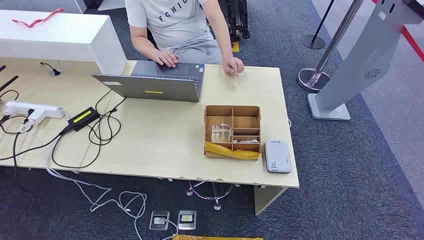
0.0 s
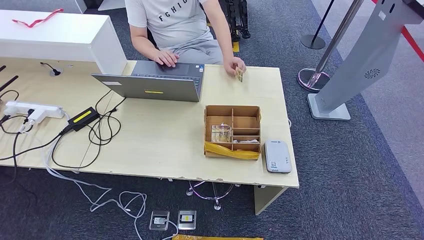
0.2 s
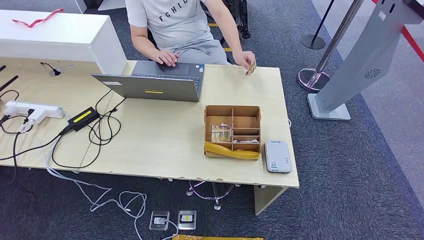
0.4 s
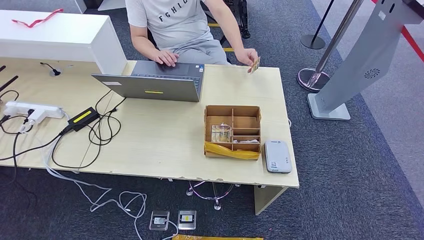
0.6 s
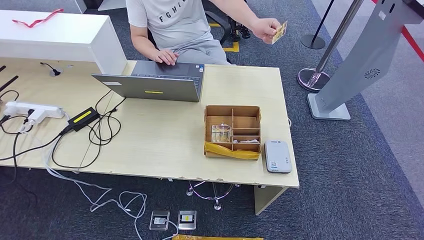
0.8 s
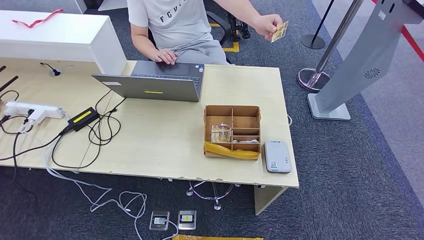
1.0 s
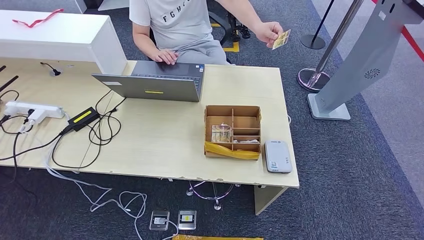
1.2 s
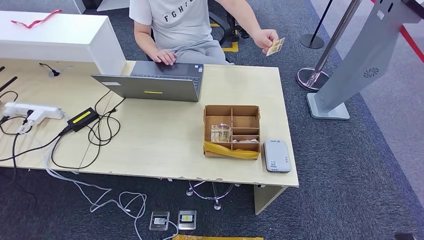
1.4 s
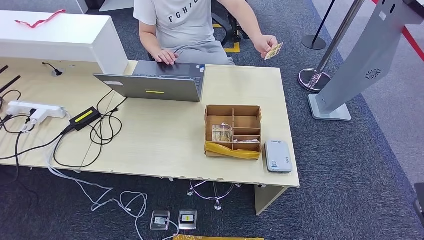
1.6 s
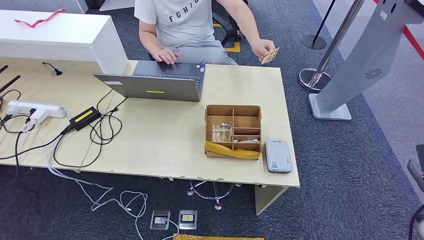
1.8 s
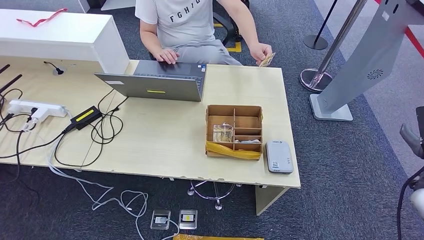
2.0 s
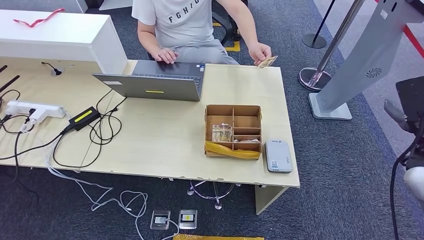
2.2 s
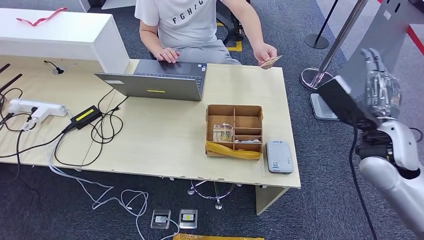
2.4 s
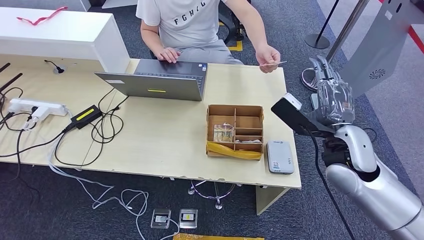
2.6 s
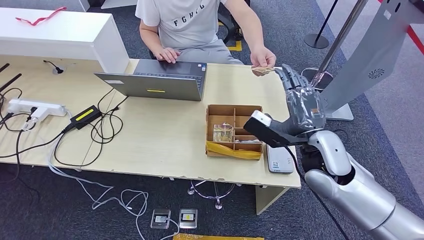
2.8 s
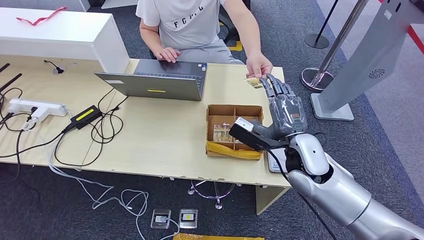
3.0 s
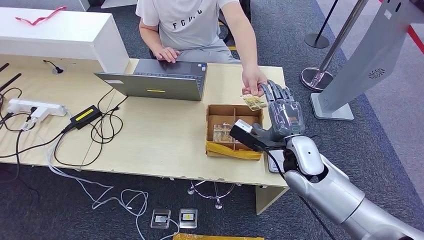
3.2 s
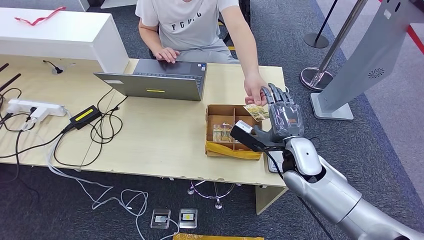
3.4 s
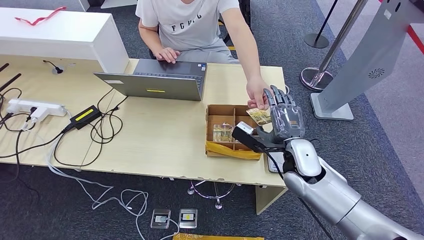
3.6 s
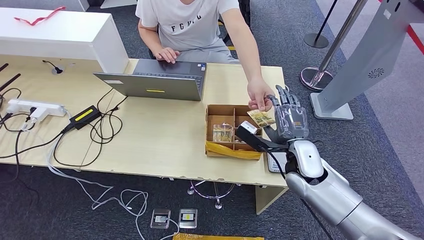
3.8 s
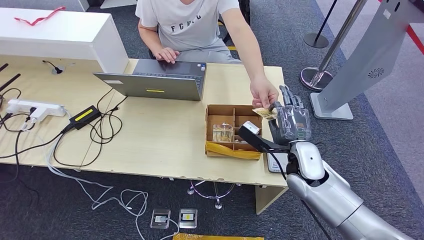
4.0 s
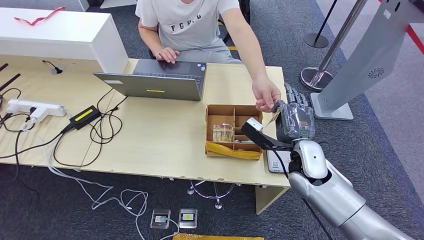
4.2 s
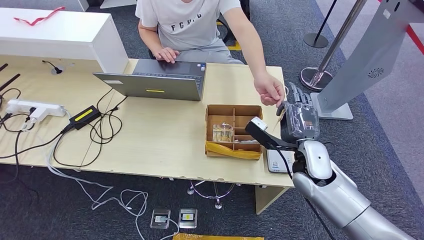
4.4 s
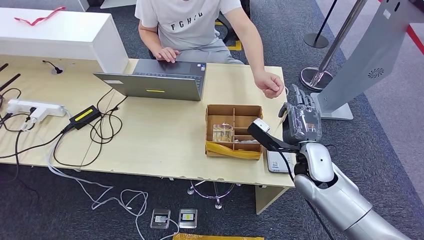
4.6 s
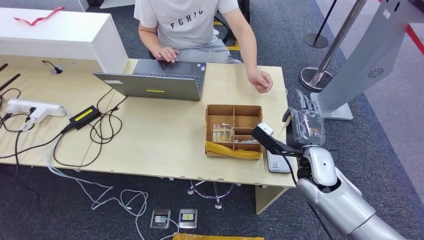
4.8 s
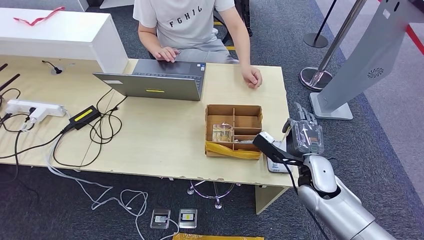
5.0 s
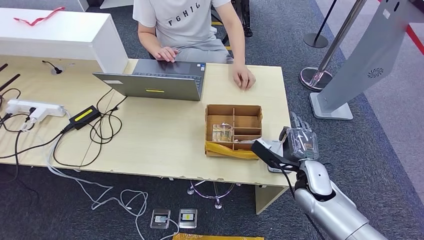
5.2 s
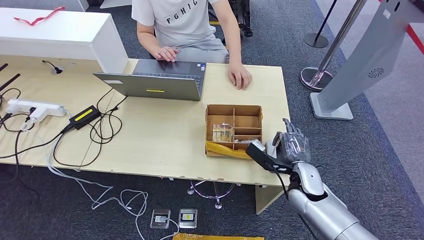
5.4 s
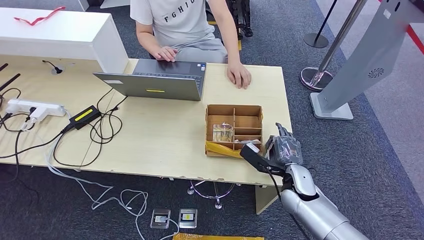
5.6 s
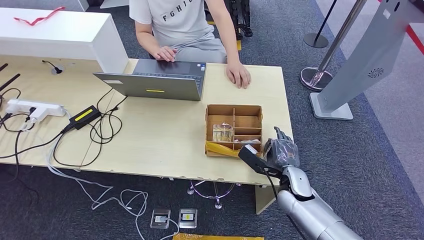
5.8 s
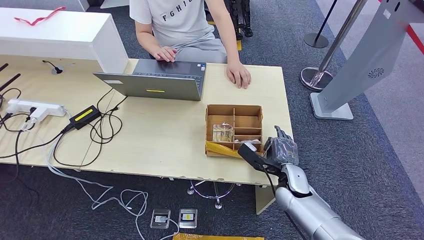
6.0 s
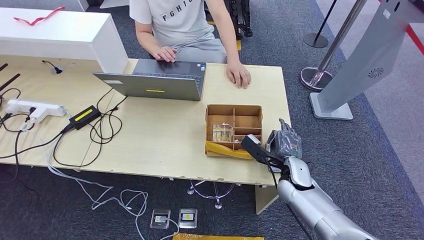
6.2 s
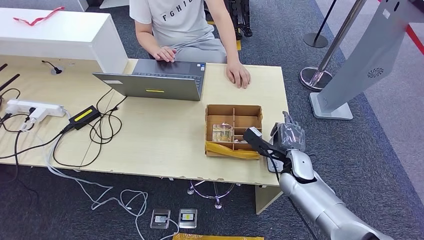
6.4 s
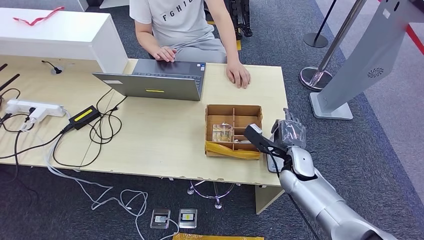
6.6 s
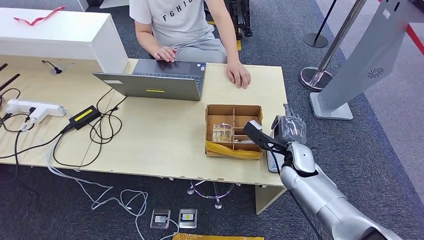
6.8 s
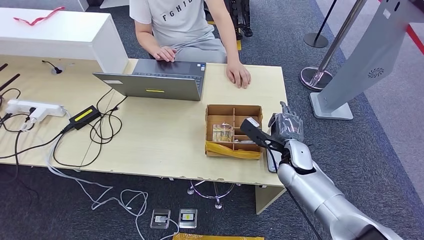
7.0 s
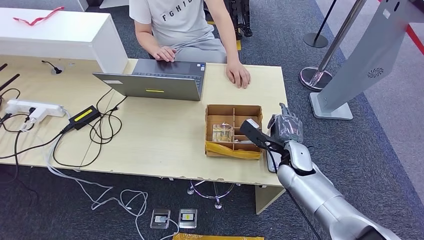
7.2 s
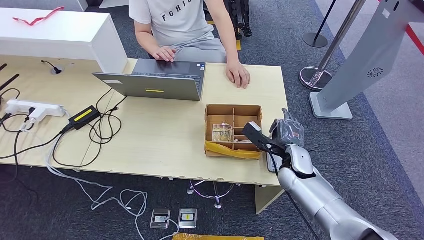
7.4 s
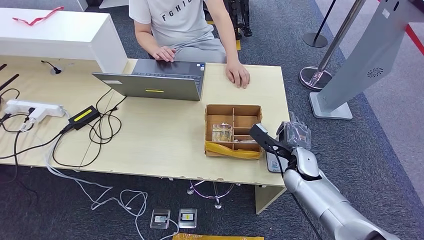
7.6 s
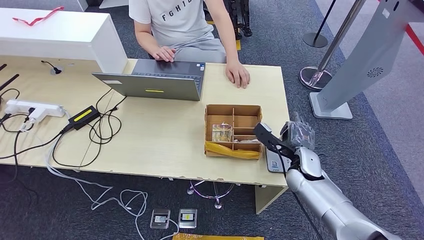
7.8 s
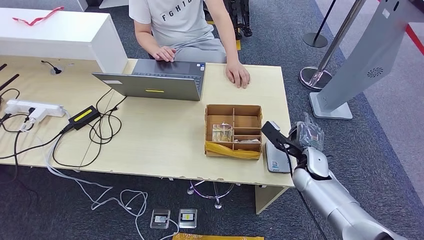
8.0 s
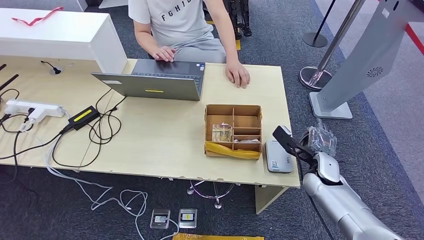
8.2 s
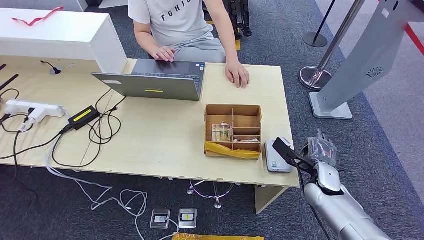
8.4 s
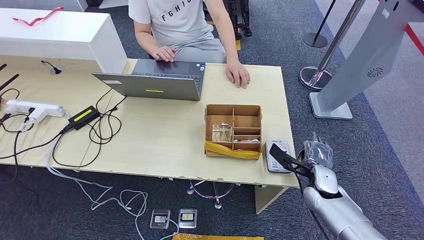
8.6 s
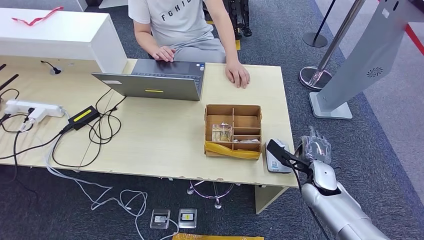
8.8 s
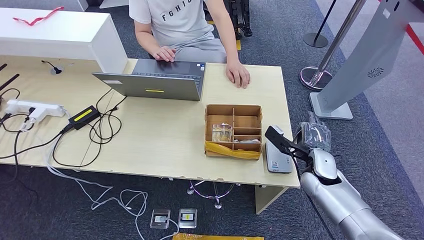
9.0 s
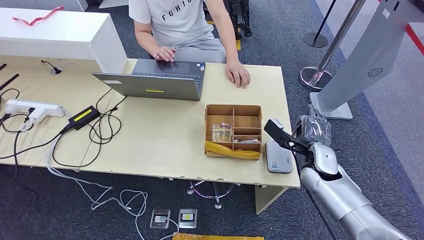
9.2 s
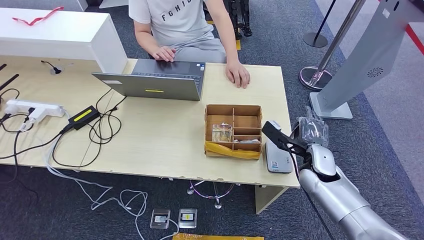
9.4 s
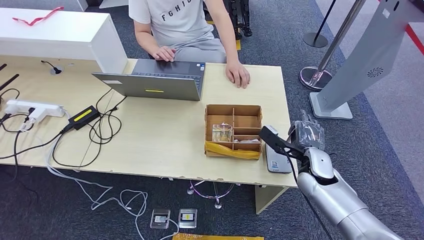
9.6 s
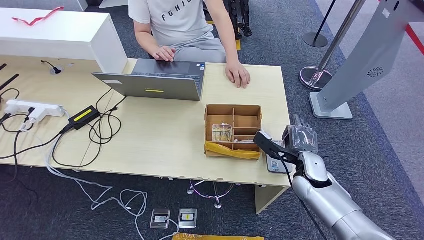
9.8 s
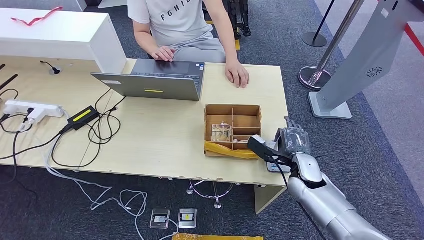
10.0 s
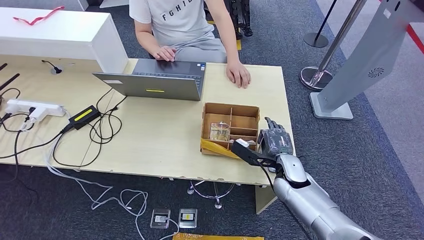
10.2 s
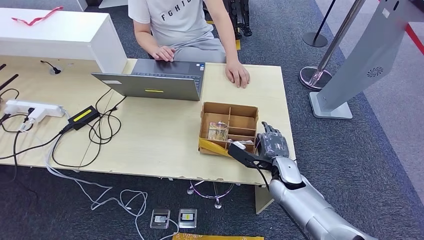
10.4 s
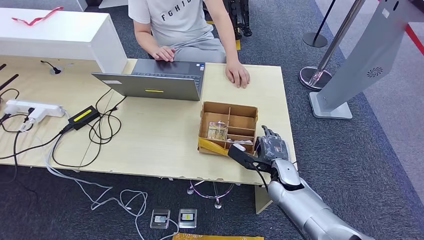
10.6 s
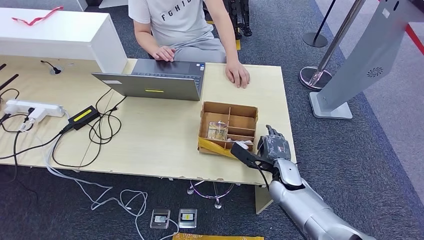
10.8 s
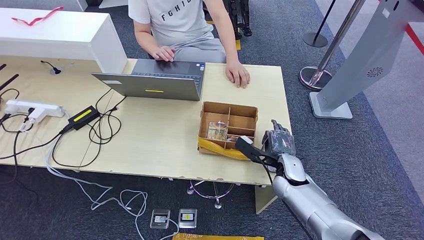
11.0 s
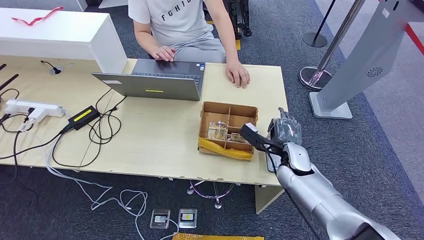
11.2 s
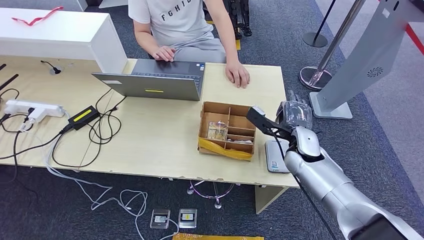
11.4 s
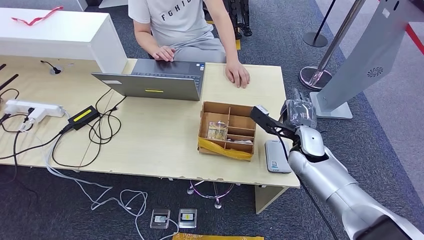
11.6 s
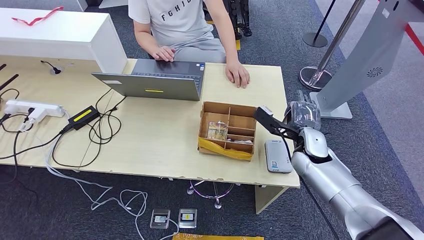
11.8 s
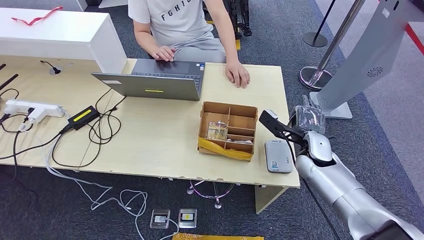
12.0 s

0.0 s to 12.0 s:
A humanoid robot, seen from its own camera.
Step, 0.0 to 4.4 s: Take the ID card from the person's hand.
Step, 4.8 to 7.6 s: Place the ID card on the card reader.
3.0 to 4.4 s: The right hand ends up about 5 cm from where it was.
4.4 to 6.0 s: The right hand heads downward, covering roughly 10 cm.
6.0 to 7.6 s: The right hand moves roughly 5 cm.
7.6 to 9.0 s: The right hand moves to the right, approximately 5 cm.
9.0 to 10.4 s: The right hand is displaced to the left by about 10 cm.
10.4 to 12.0 s: The right hand moves upward and to the right, some 10 cm.

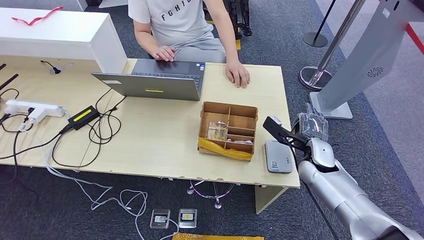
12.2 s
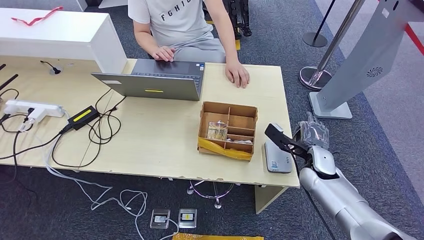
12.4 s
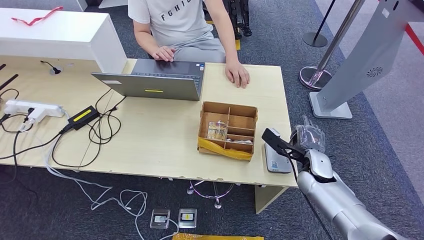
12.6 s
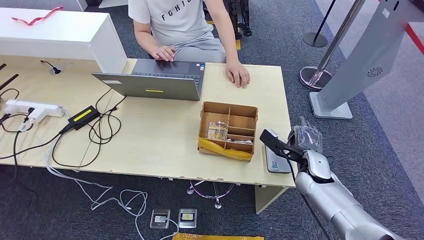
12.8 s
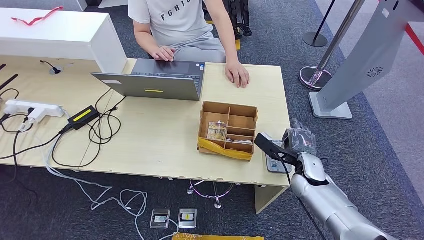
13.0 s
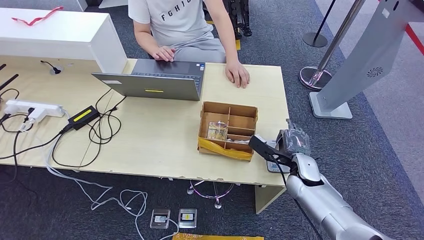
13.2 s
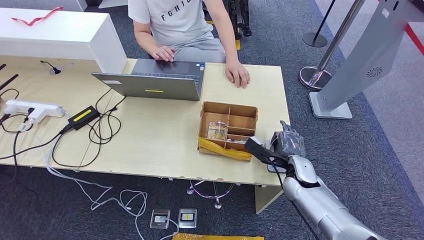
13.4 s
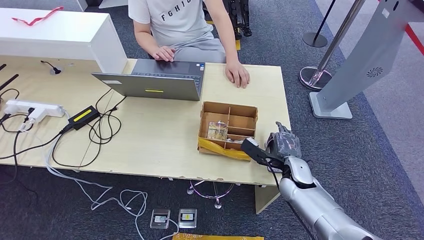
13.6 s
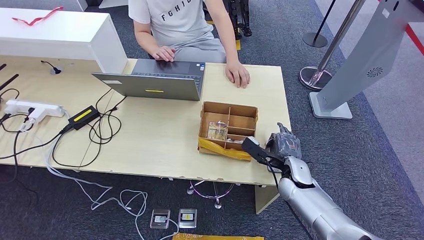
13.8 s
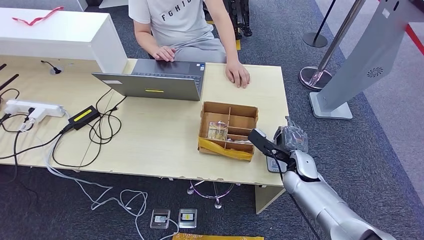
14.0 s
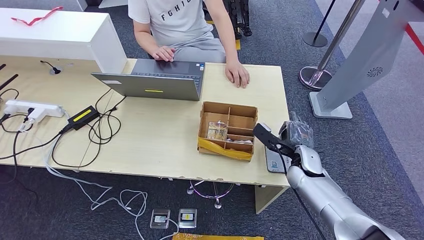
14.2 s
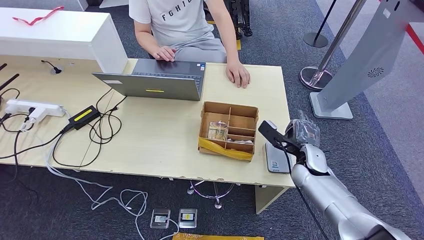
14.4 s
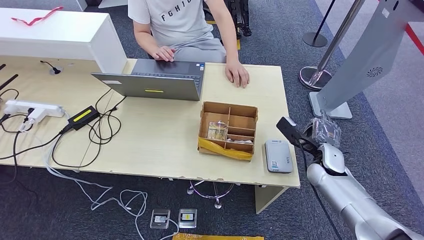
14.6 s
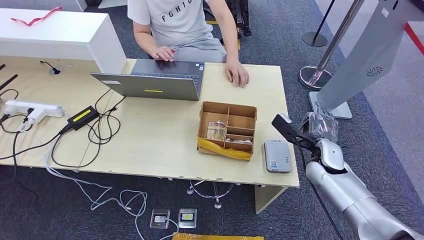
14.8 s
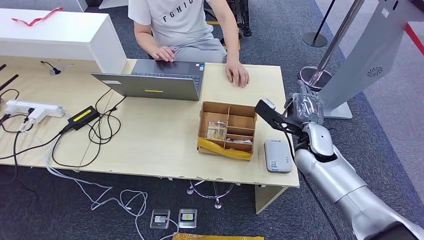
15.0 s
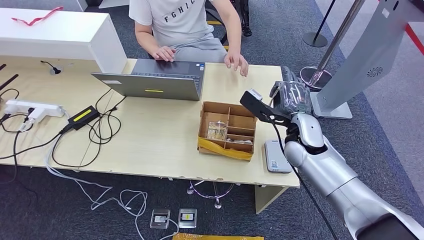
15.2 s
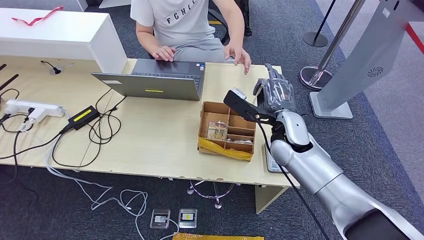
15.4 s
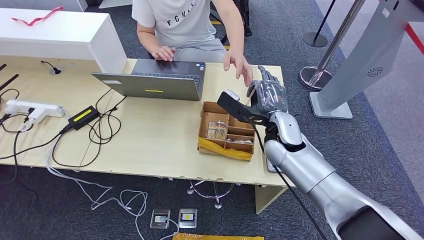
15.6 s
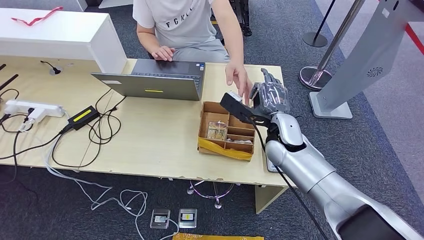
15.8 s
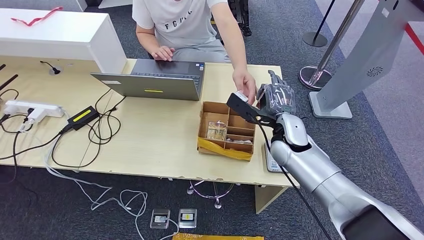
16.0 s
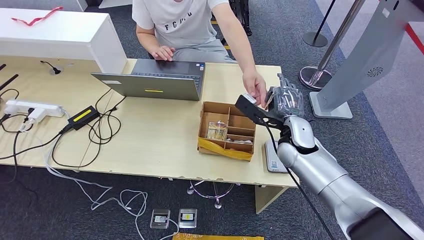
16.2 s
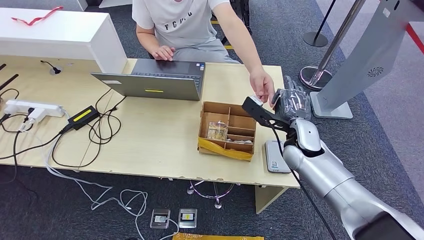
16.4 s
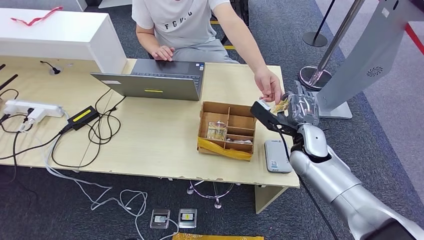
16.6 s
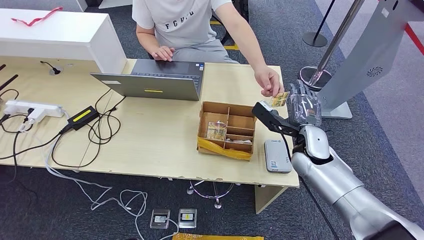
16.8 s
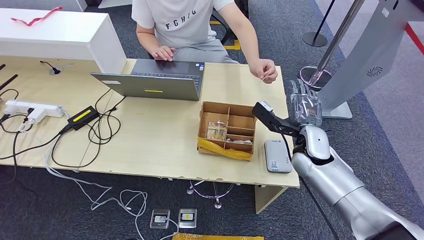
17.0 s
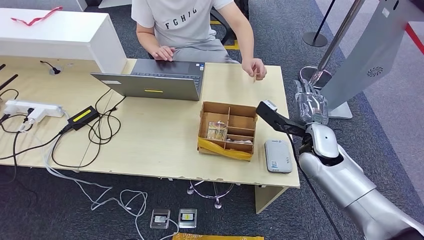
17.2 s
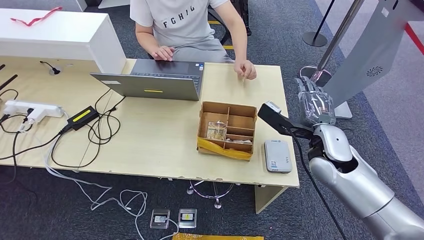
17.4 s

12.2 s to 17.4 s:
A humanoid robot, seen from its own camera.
Step, 12.8 to 15.6 s: Pick up the room key from the key card box.
Step, 15.8 to 17.4 s: Hand the room key to the person.
12.2 to 14.0 s: The right hand shifts by about 5 cm.
14.0 to 15.6 s: The right hand heads upward and to the left, covering roughly 15 cm.
15.6 to 17.4 s: The right hand shifts roughly 10 cm to the right.
